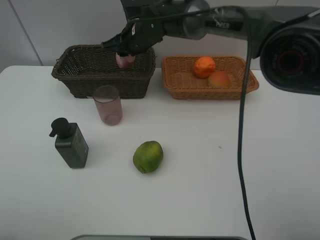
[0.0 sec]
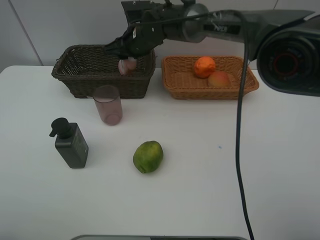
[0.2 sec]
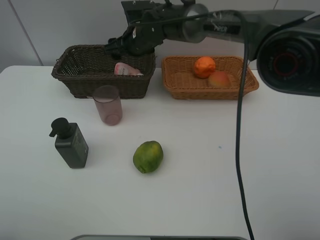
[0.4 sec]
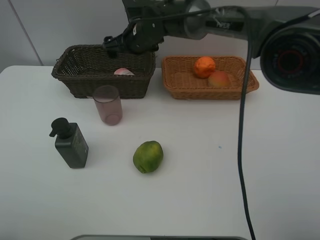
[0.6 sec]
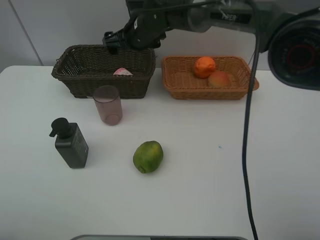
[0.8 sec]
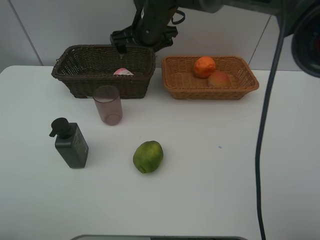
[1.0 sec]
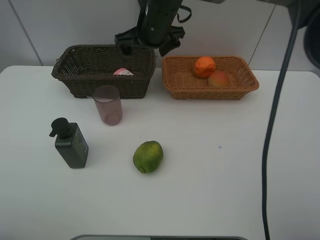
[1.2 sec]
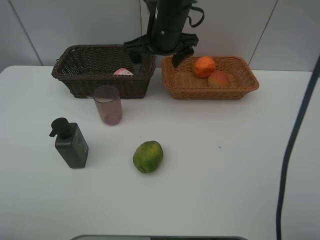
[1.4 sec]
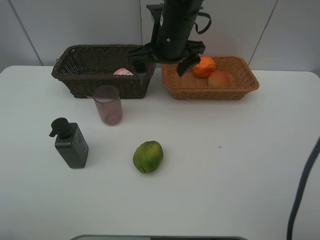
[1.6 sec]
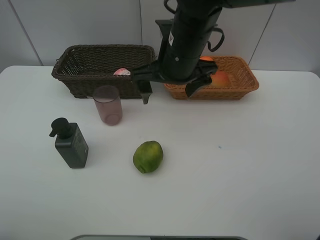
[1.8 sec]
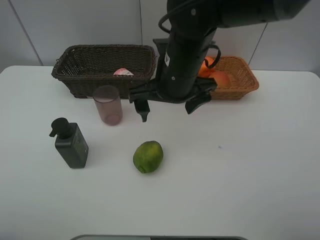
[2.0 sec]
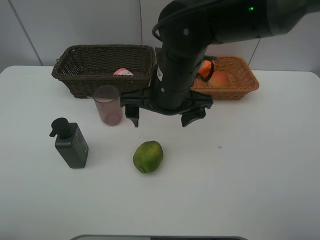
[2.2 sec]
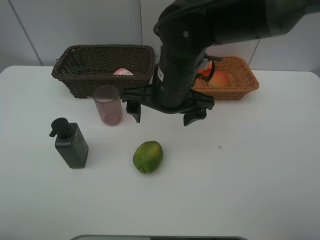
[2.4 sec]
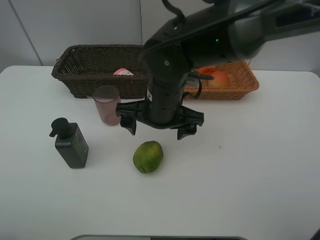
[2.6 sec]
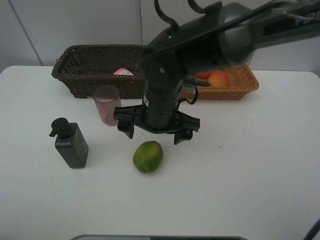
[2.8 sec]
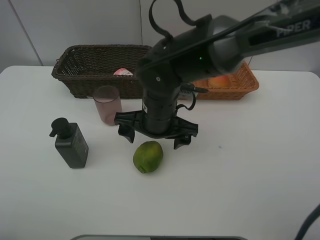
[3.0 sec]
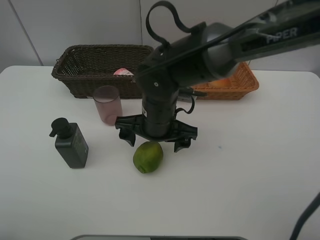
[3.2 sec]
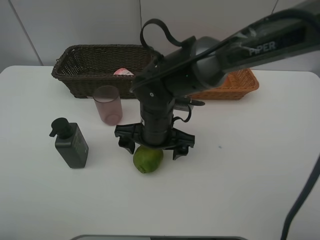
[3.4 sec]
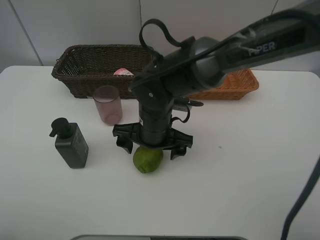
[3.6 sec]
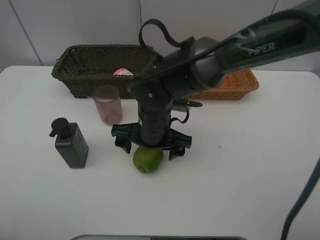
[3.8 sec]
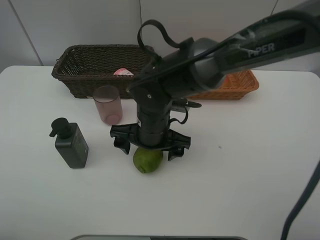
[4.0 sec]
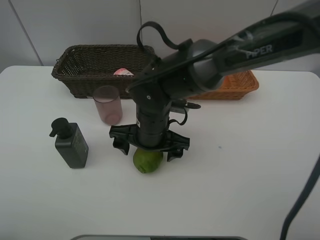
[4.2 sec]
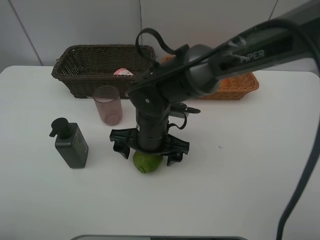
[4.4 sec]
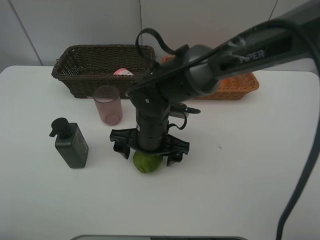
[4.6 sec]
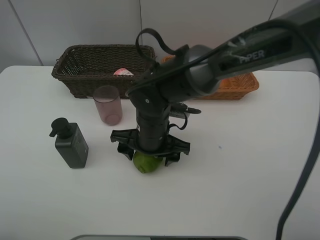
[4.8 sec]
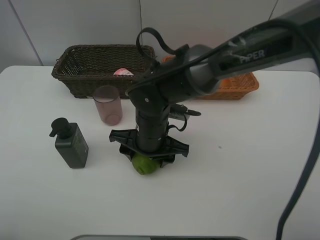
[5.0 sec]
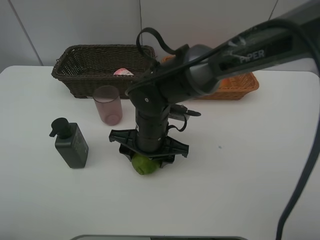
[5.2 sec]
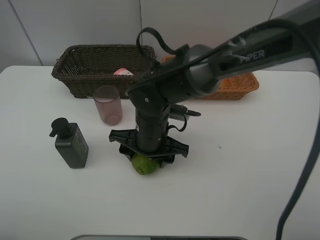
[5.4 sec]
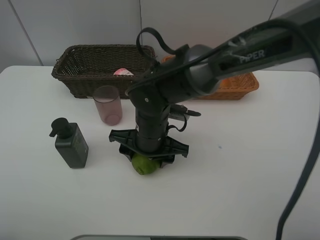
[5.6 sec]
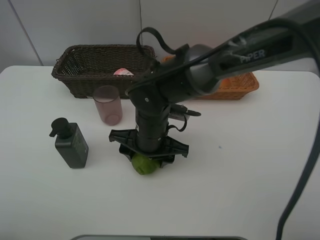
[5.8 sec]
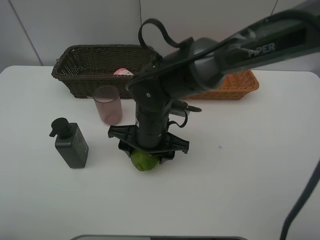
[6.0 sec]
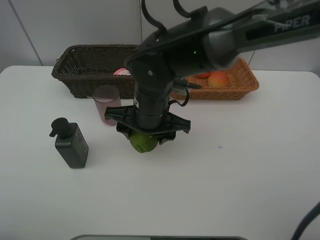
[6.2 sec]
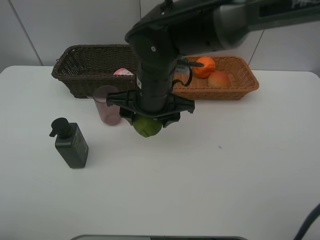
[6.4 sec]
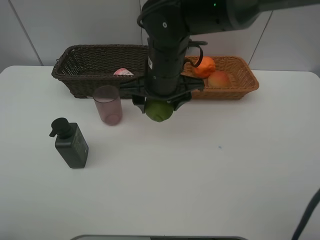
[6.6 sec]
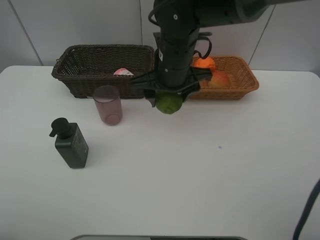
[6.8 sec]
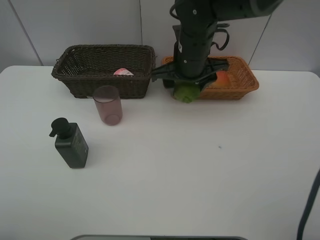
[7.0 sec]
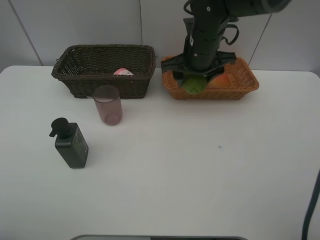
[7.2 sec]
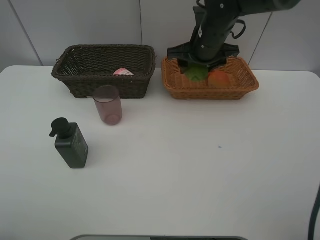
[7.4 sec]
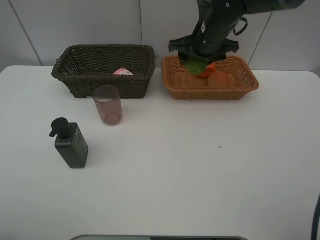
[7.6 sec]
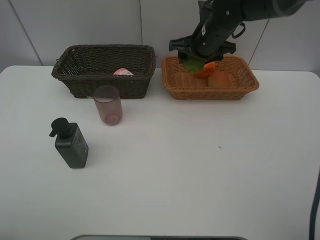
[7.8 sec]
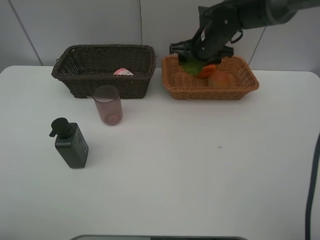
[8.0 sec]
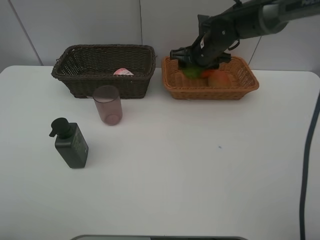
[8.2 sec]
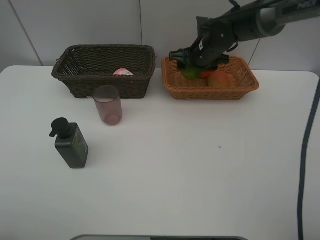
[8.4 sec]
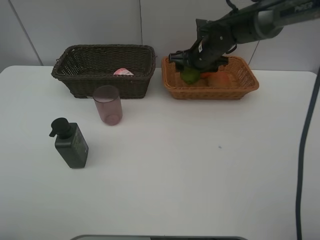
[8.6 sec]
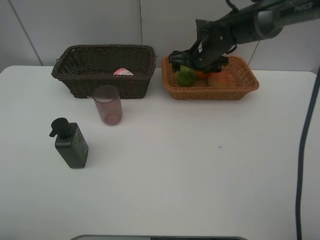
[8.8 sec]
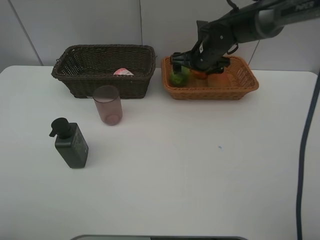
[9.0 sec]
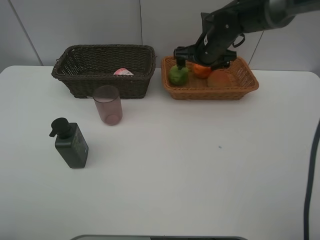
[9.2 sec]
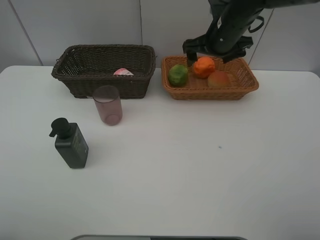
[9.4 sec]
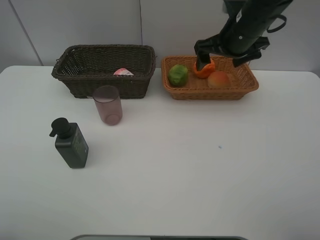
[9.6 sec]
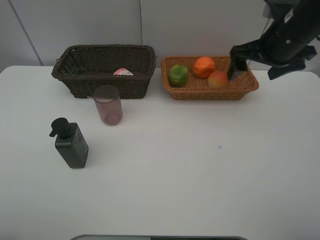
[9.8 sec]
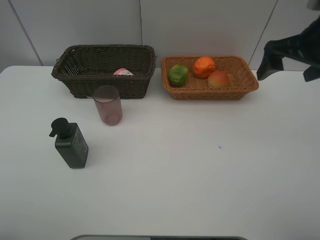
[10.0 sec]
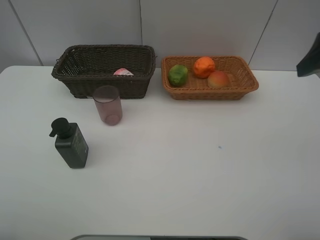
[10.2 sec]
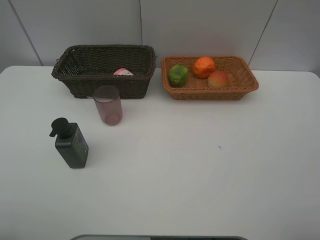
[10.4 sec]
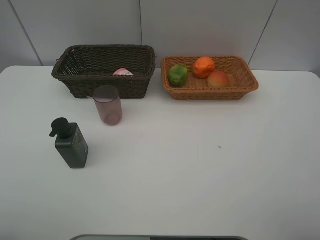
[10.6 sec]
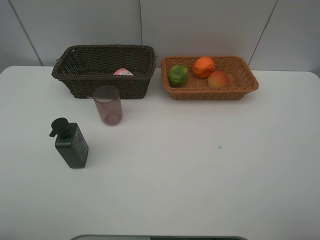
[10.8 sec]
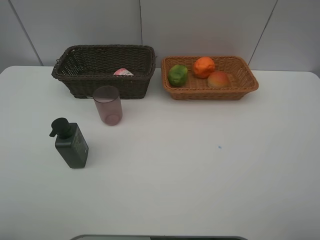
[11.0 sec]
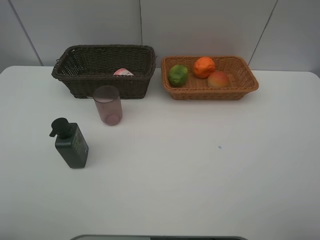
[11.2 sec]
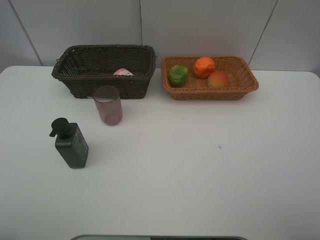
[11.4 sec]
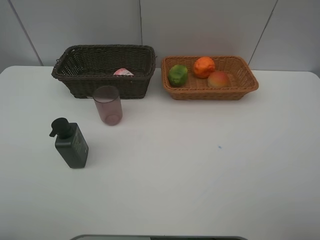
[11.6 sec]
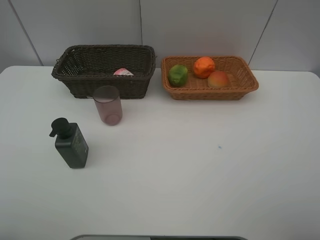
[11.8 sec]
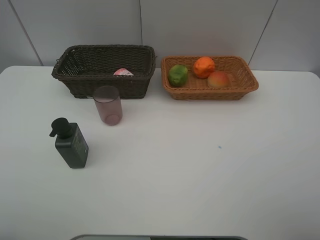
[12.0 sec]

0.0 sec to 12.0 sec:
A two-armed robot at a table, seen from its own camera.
Task of the whole recording: place multiple objects separately in different baskets.
0.0 sec to 1.6 sec: The right gripper goes roughly 15 cm backward, to the right and upward, and opens its fingers.
1.6 sec to 3.0 sec: The right gripper is displaced downward and backward by approximately 15 cm.
3.0 sec to 4.4 sec: The grippers move only a little.
4.4 sec to 6.0 sec: The right gripper closes its fingers.
6.0 sec to 7.6 sec: The right gripper moves forward, to the right and upward, some 25 cm.
7.6 sec to 9.0 sec: The right gripper heads downward, covering about 5 cm, and opens up.
9.0 sec to 10.4 sec: The right gripper travels backward, upward and to the right by roughly 40 cm.

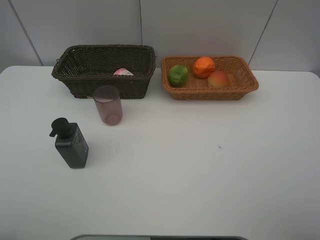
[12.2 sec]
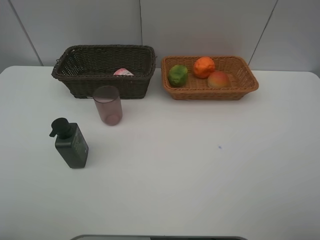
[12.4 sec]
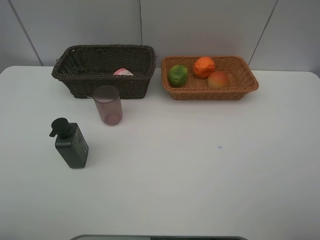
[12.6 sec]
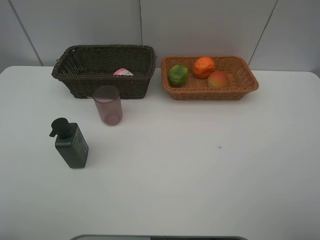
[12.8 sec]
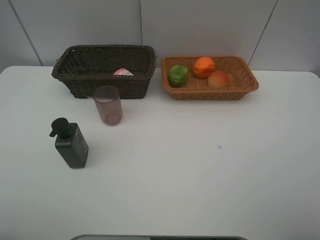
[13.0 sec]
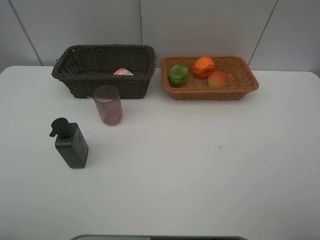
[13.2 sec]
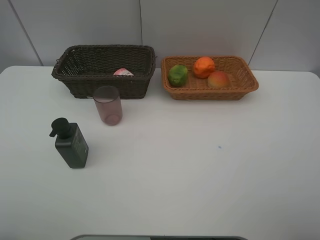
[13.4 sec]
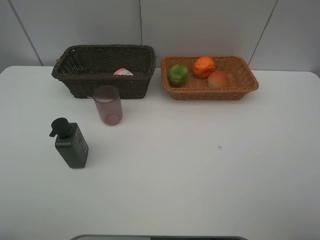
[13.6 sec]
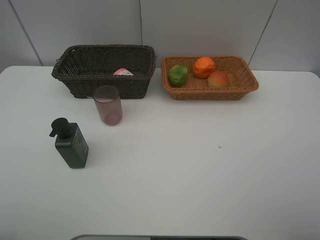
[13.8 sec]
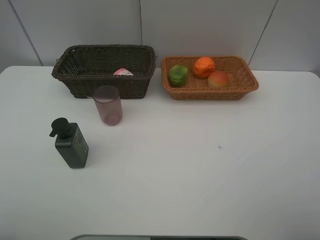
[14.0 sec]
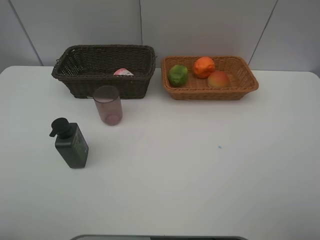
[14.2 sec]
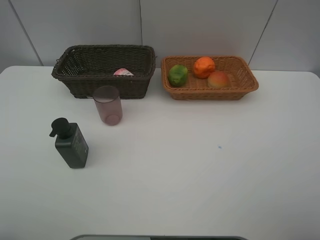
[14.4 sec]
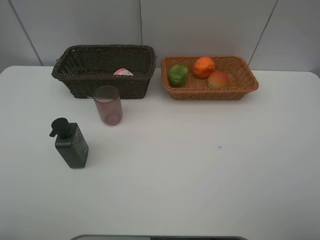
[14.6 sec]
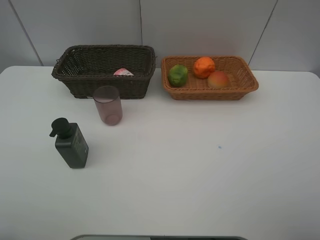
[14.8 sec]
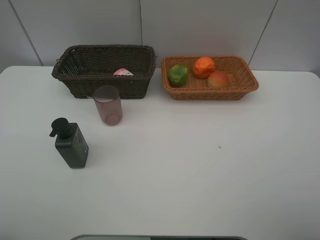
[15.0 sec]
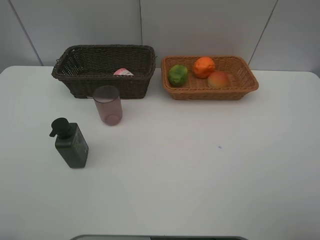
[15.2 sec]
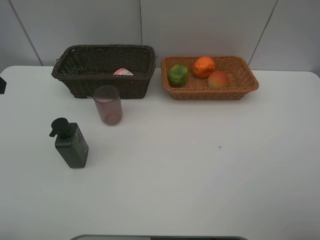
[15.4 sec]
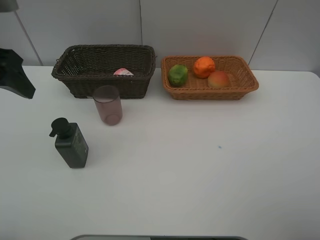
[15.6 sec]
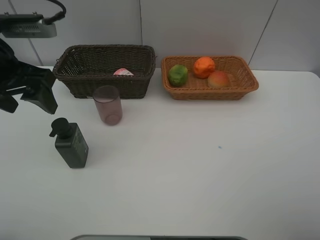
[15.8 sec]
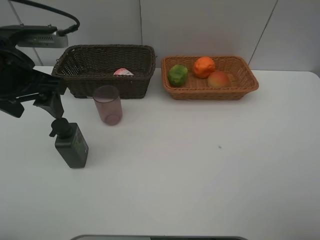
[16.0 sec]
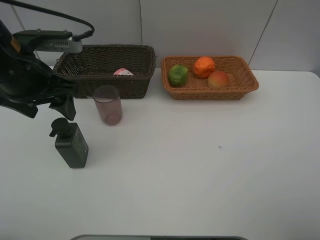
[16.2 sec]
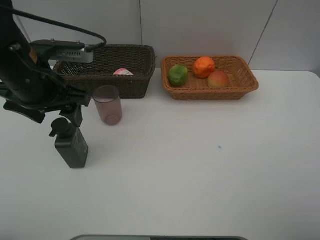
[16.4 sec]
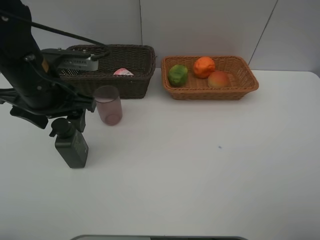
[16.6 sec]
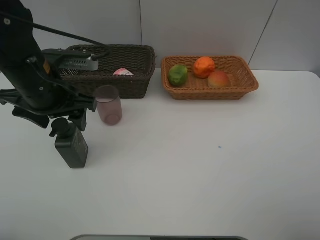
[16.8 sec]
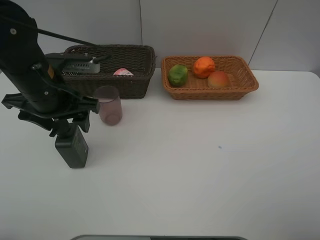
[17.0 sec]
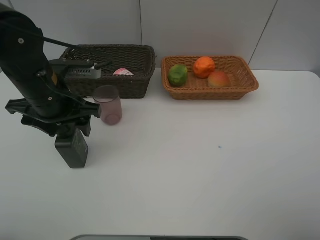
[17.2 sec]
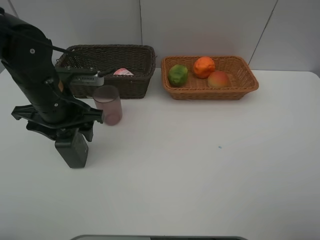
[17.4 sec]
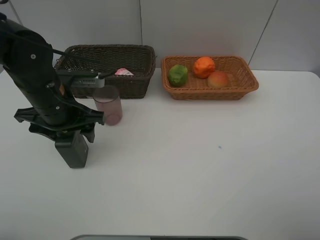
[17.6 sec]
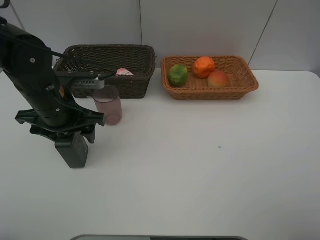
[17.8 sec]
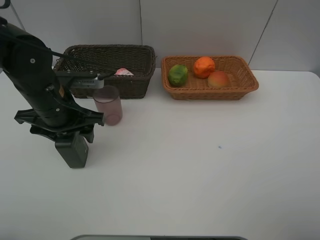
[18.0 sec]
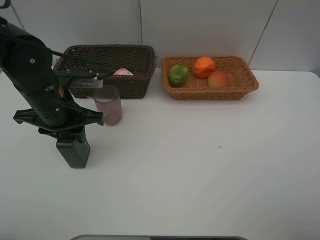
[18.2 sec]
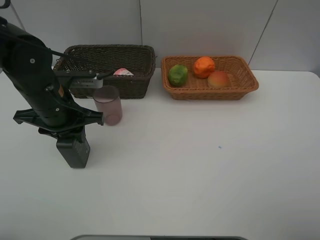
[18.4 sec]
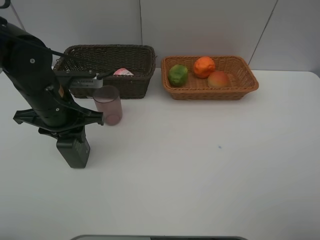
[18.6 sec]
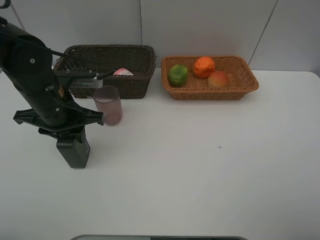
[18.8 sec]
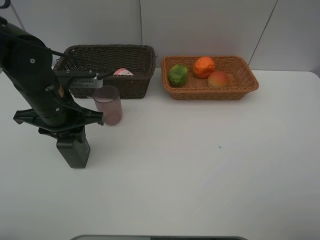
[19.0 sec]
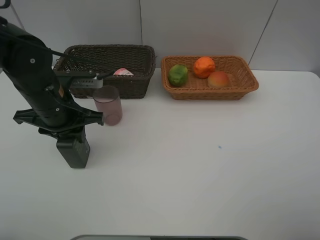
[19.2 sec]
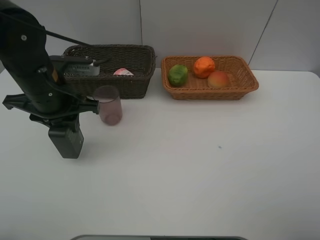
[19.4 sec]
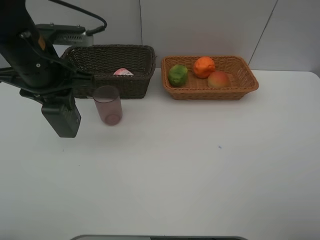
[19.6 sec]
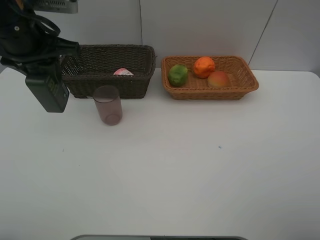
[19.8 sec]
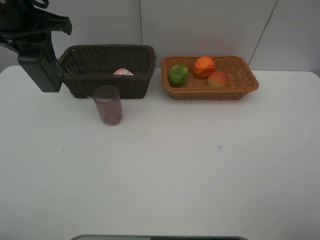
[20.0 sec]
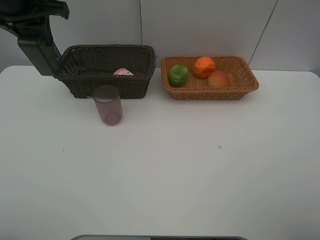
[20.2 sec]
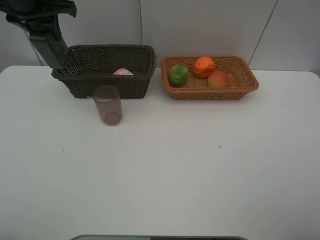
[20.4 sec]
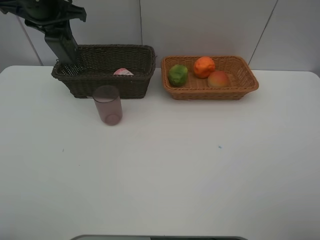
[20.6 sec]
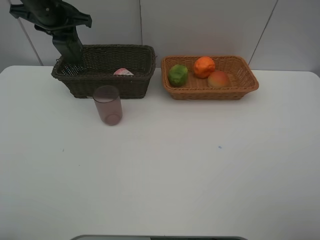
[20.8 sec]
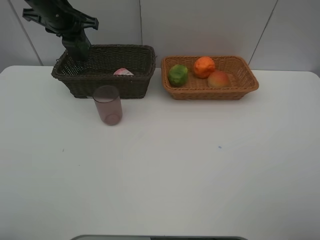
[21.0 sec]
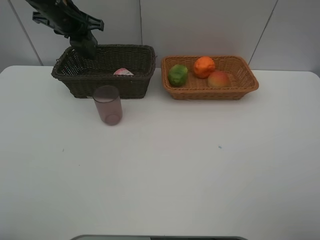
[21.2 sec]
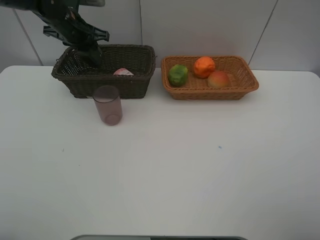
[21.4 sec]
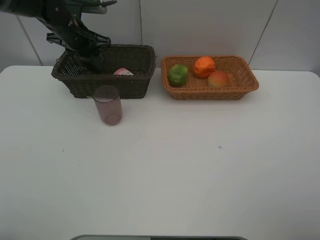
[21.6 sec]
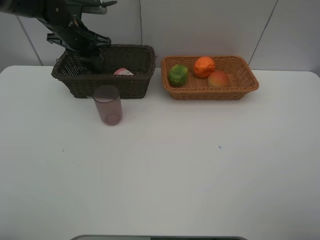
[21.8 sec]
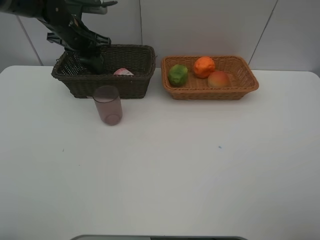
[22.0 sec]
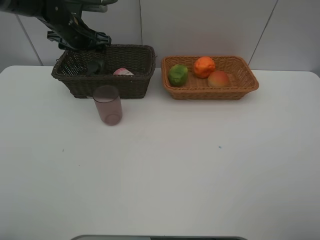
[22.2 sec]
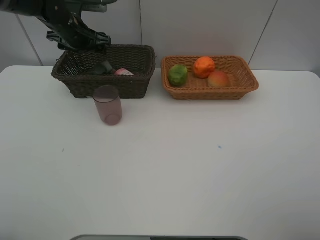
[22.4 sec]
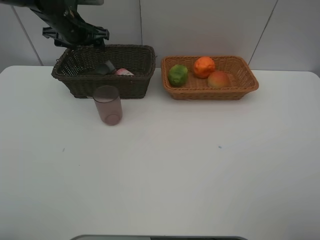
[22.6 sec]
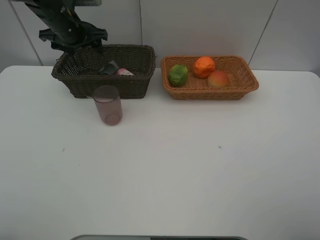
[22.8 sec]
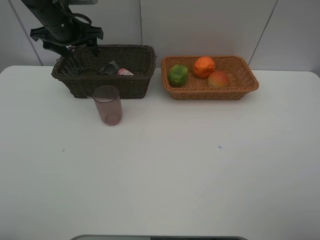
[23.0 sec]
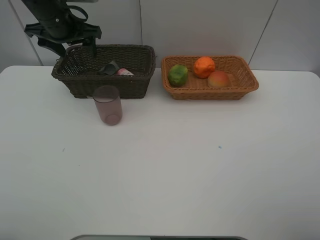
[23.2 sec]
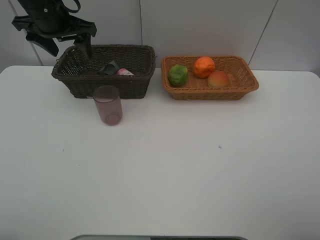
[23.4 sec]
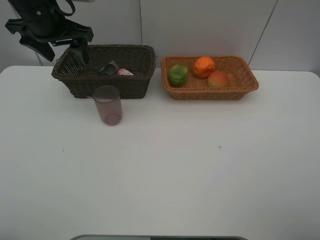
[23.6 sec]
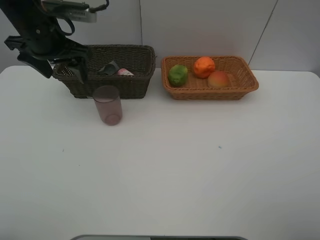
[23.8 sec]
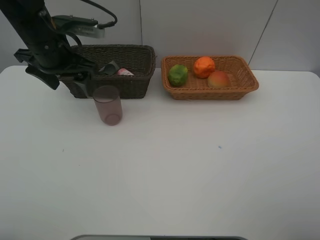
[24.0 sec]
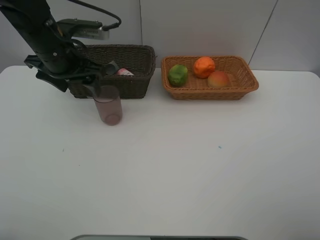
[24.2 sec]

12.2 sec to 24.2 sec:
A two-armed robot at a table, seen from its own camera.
Task of the whole recording: place multiple objects separately in different baskets.
12.2 sec to 13.8 sec: Both grippers stay put.
15.2 sec to 16.6 sec: The left gripper is displaced forward, to the right and downward by approximately 20 cm.
16.6 sec to 18.2 sec: The left gripper moves downward, approximately 5 cm, and closes up.
18.2 sec to 19.8 sec: The left gripper shifts roughly 15 cm upward.
19.8 sec to 21.2 sec: The left gripper goes approximately 15 cm forward.
21.2 sec to 22.6 sec: The left gripper opens up.
22.6 sec to 24.2 sec: The left gripper heads backward, covering roughly 10 cm.
